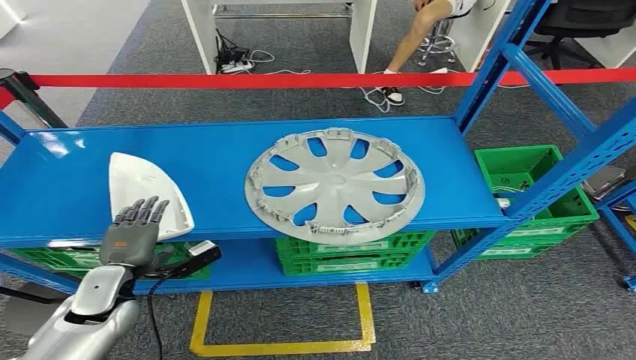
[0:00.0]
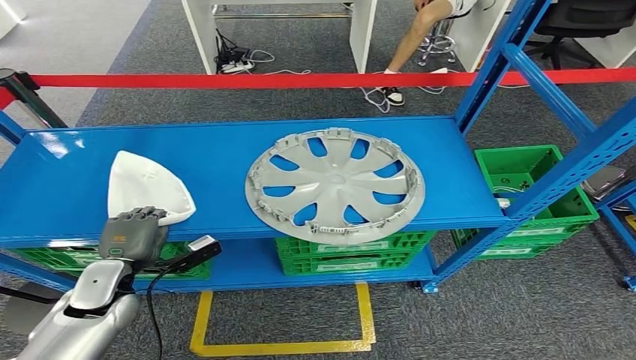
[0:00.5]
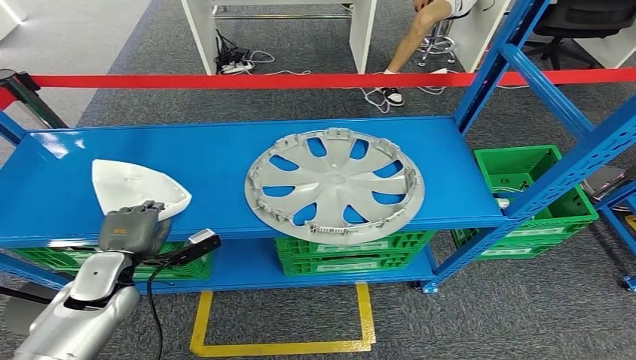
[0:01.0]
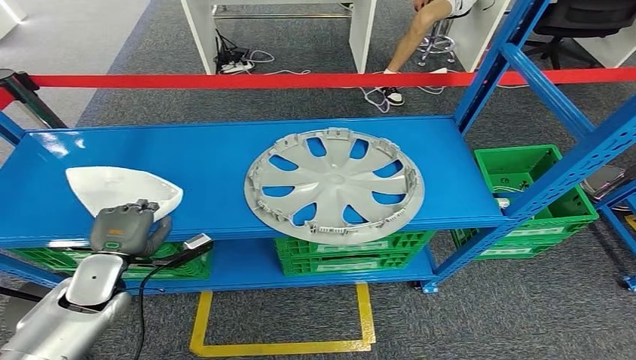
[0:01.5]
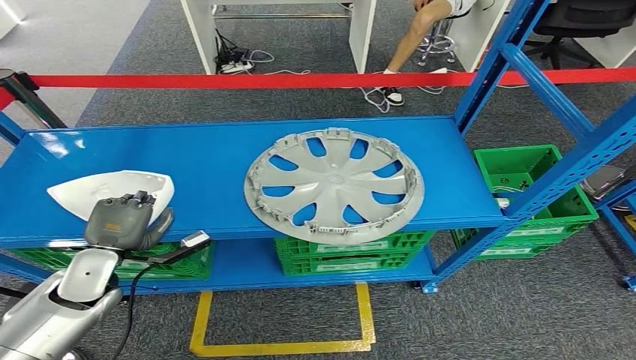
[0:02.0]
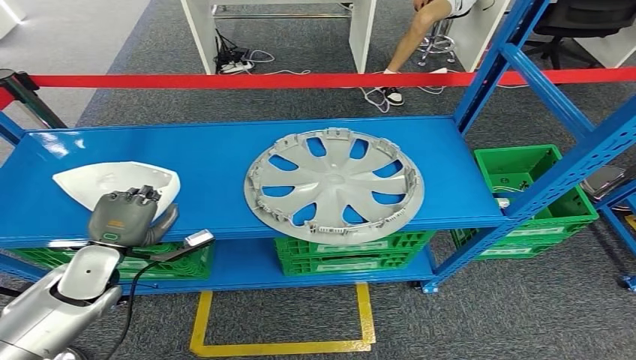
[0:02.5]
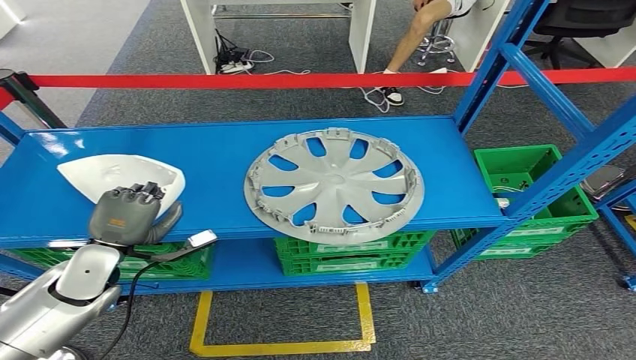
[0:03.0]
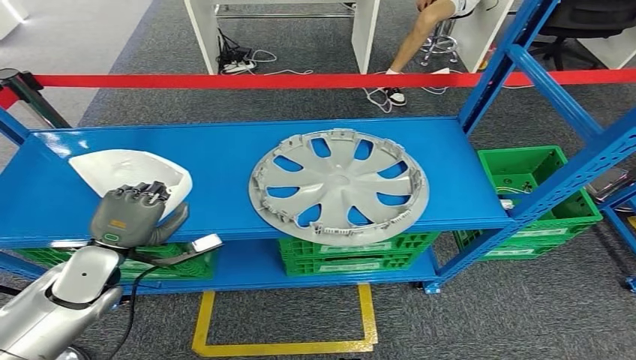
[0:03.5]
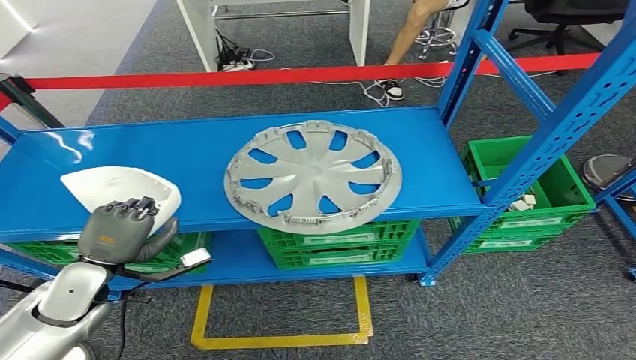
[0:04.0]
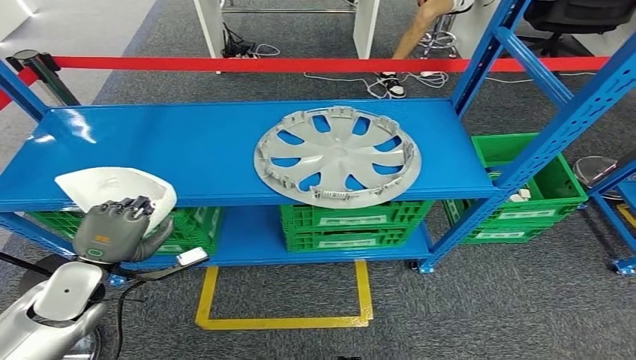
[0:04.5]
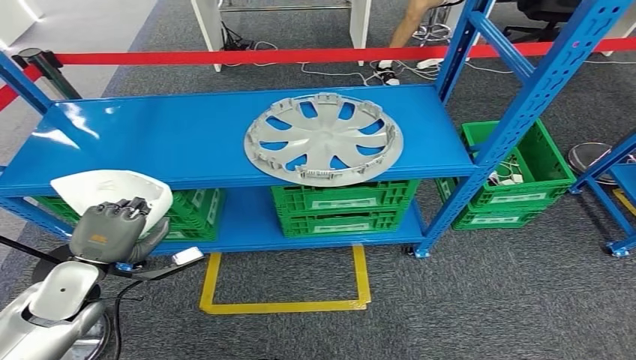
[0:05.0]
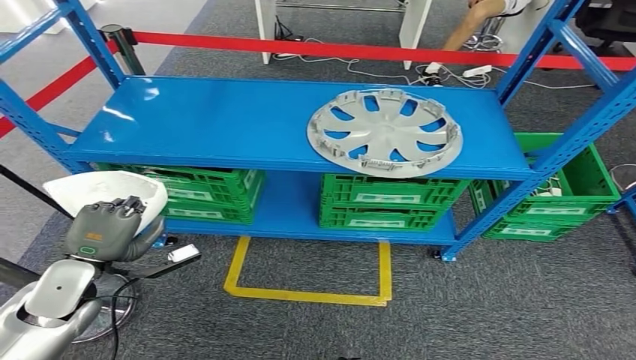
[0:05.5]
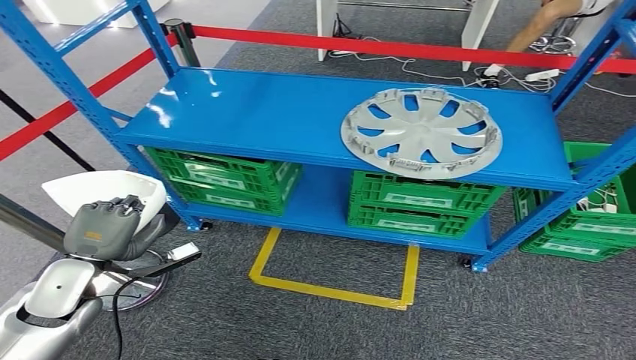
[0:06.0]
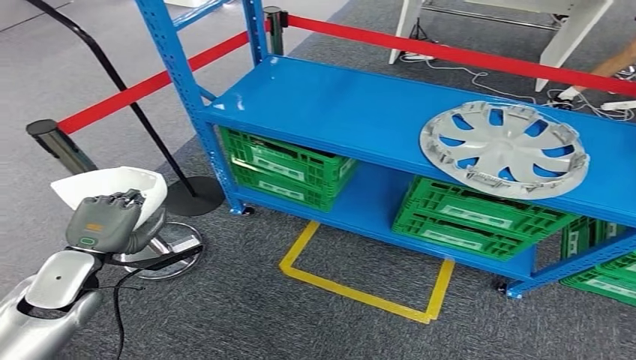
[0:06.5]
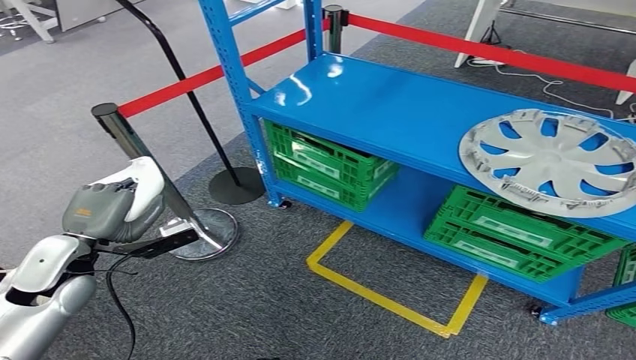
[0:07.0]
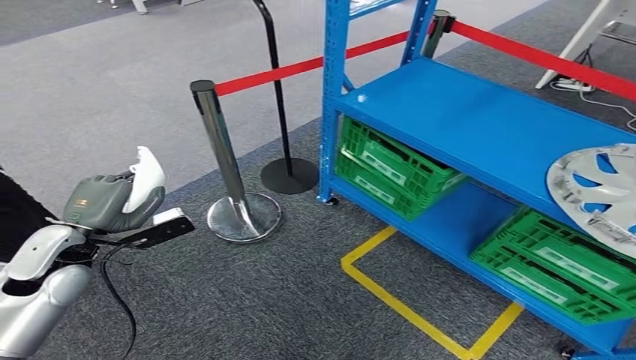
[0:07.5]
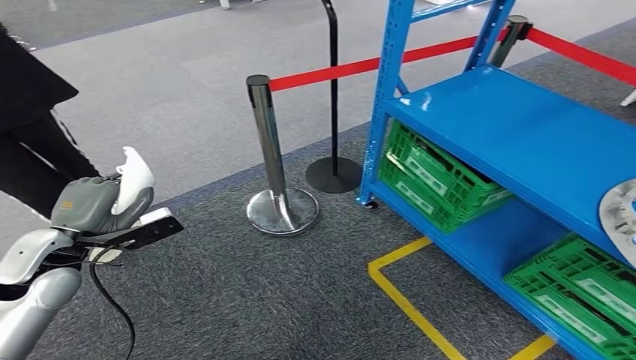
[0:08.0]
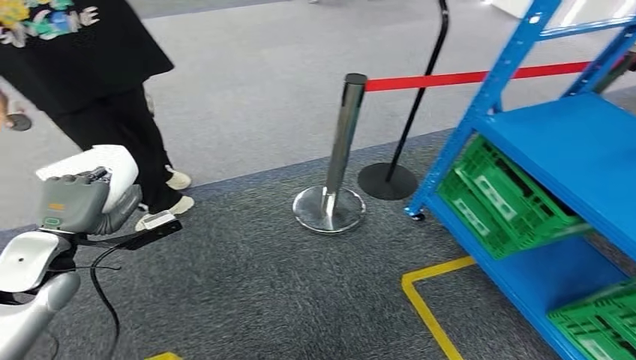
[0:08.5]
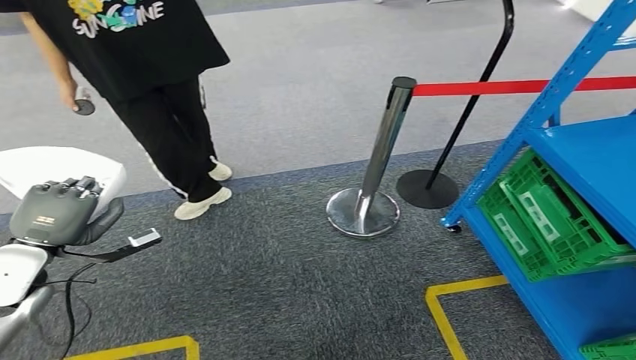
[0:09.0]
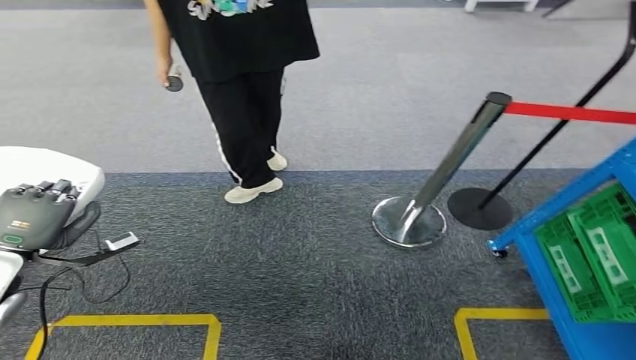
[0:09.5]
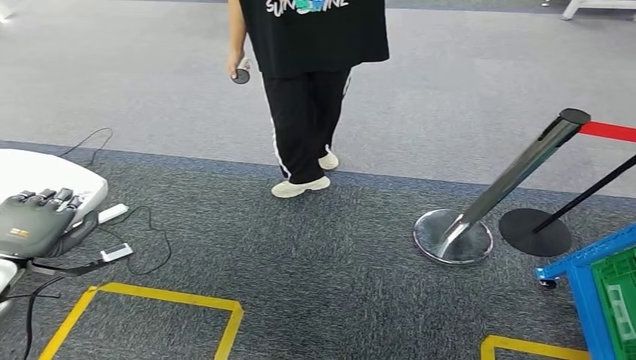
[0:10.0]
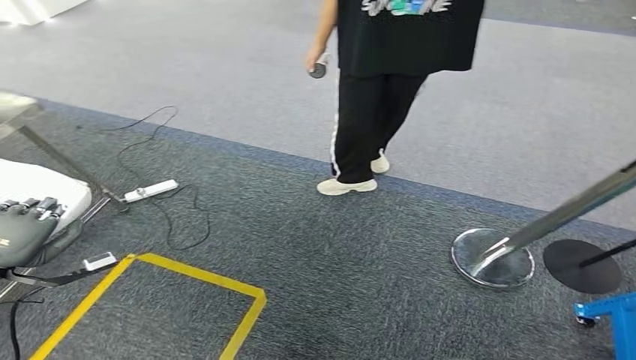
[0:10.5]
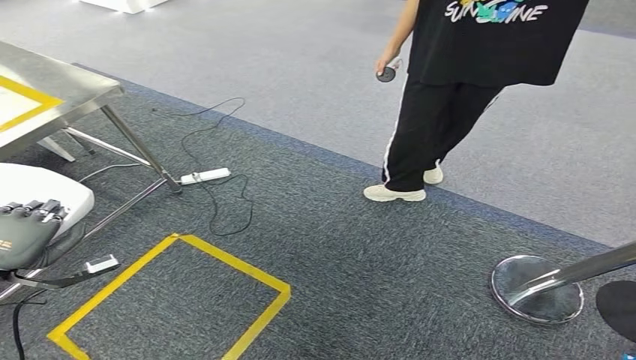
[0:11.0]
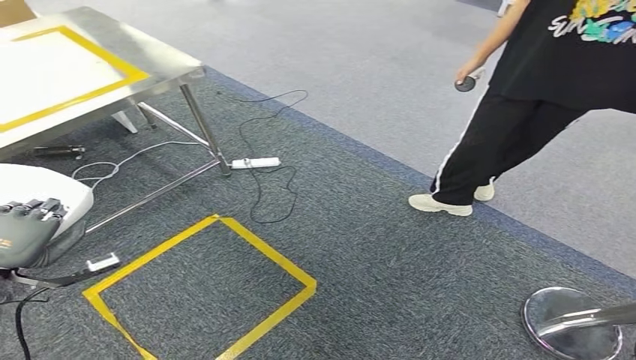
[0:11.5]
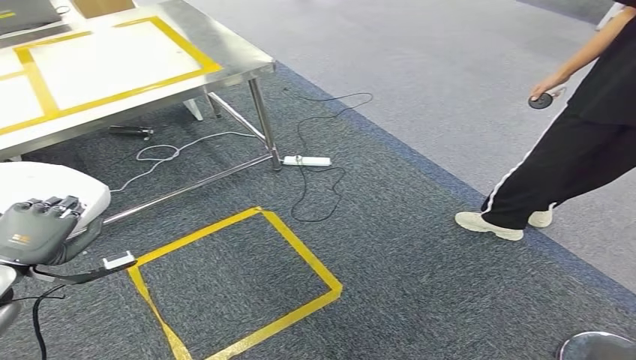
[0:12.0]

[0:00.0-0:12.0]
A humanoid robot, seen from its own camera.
Step, 0:00.0 to 0:04.5: Pick up the small parts from the shelf.

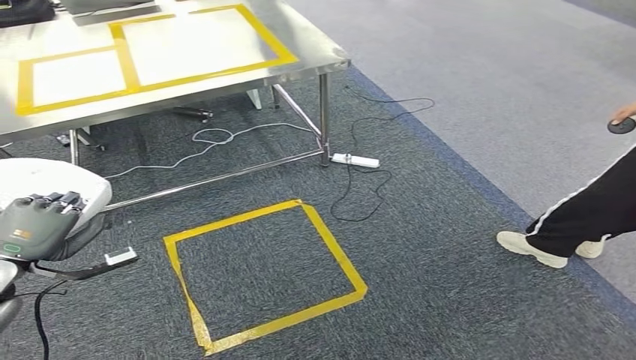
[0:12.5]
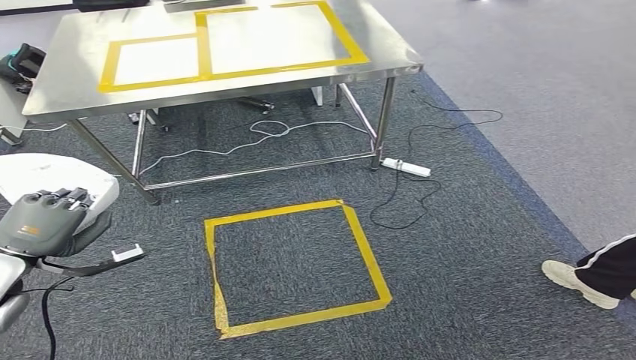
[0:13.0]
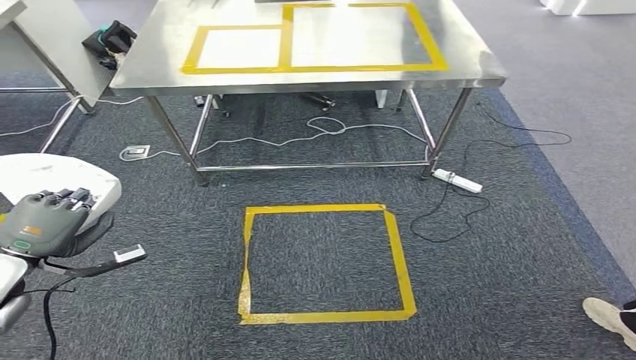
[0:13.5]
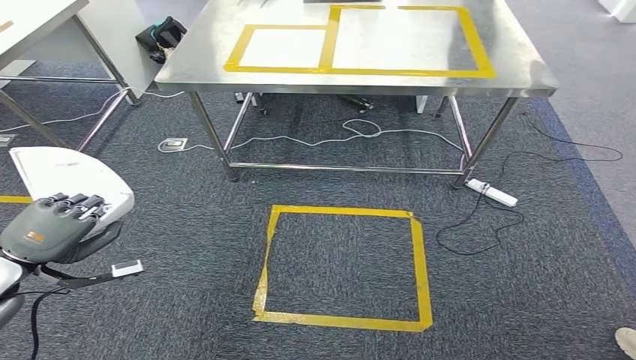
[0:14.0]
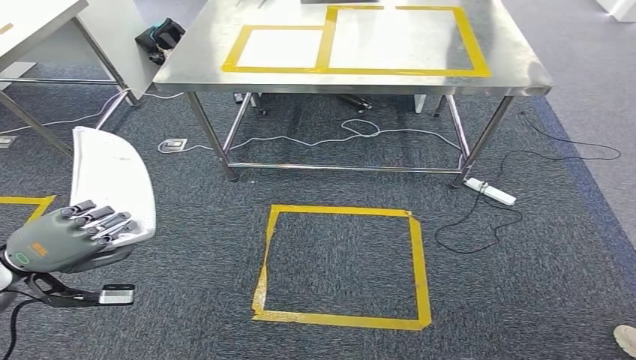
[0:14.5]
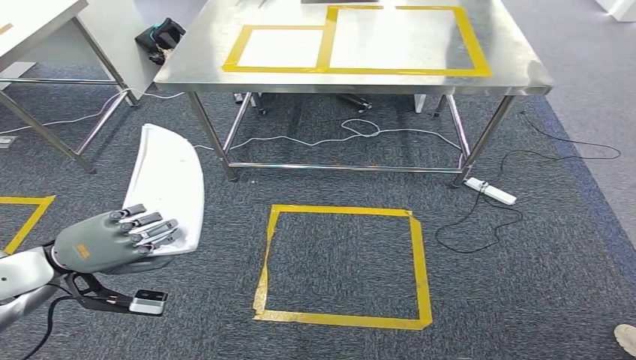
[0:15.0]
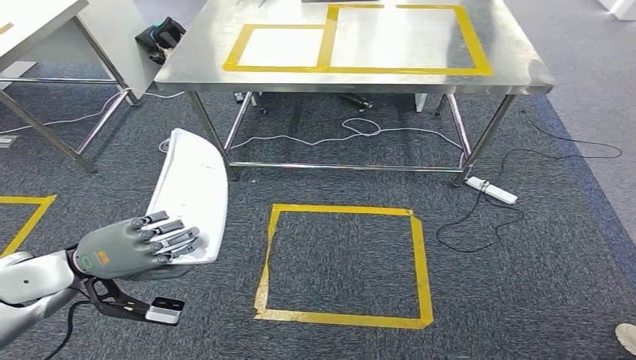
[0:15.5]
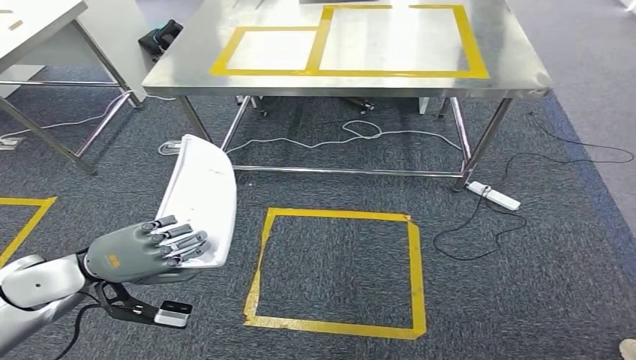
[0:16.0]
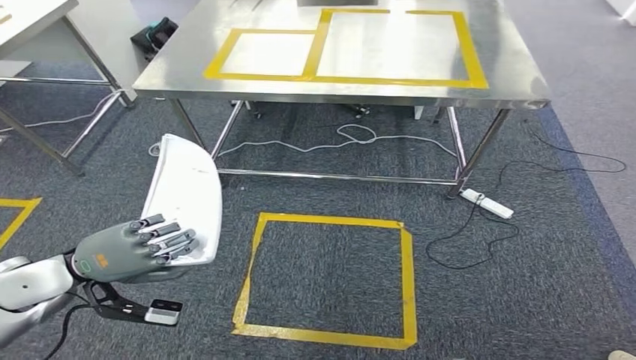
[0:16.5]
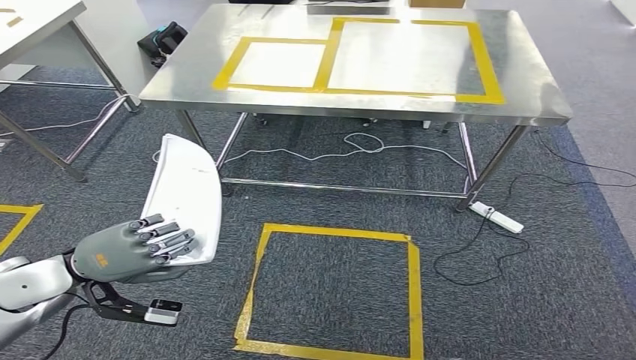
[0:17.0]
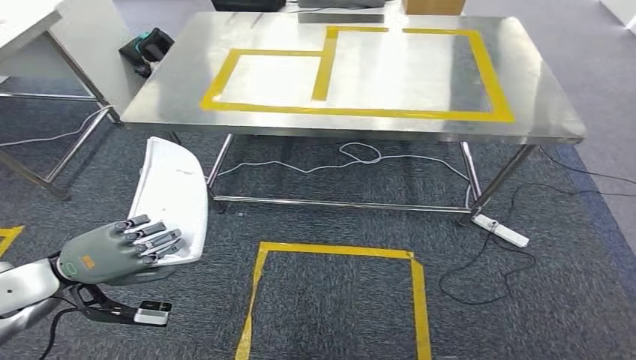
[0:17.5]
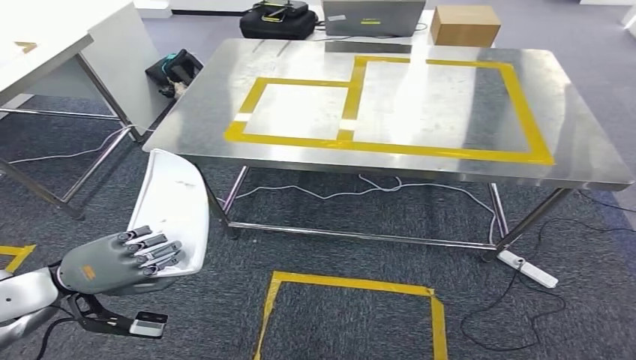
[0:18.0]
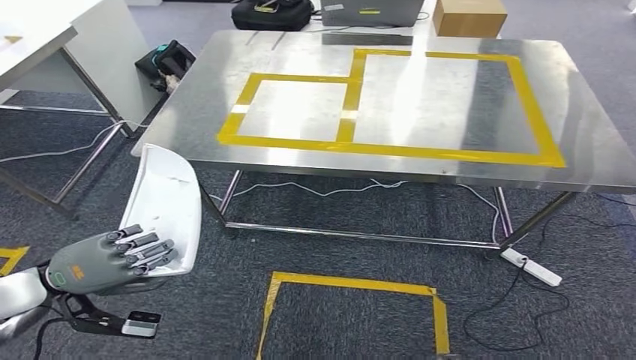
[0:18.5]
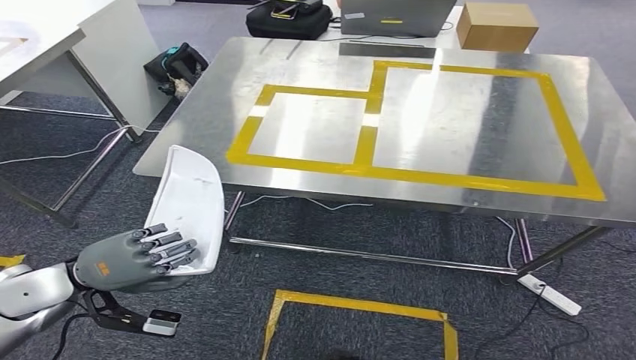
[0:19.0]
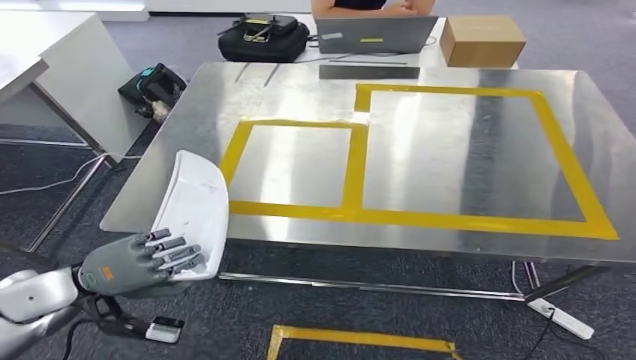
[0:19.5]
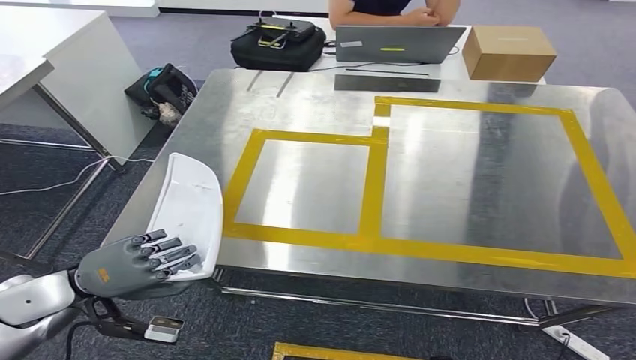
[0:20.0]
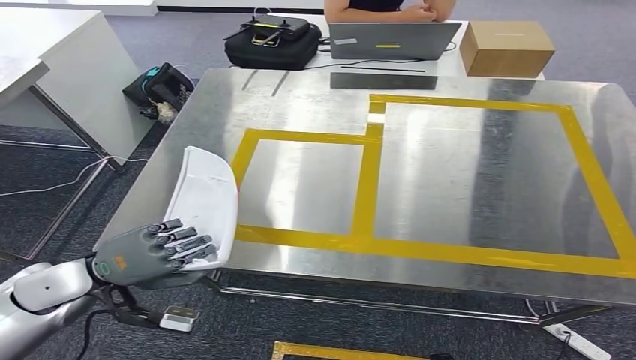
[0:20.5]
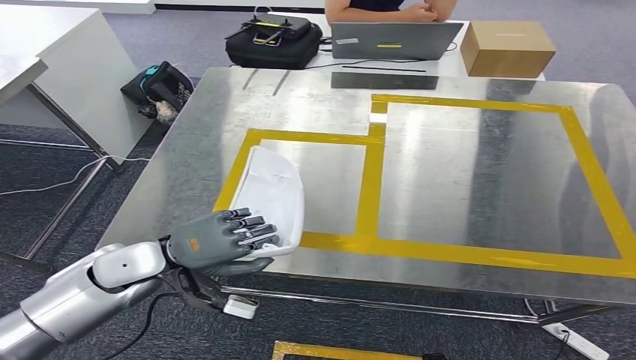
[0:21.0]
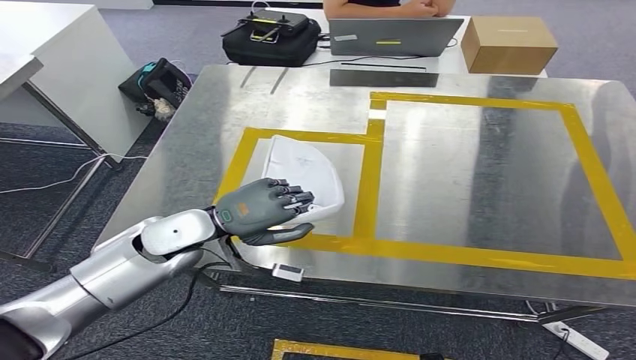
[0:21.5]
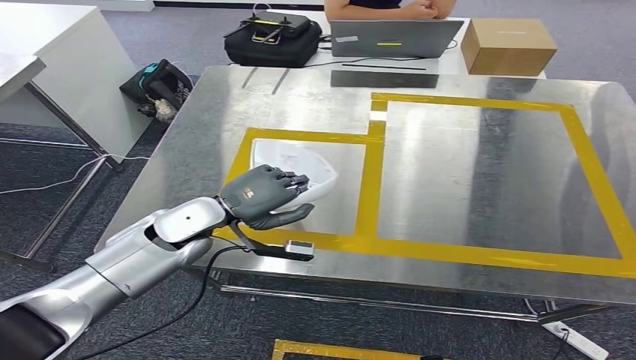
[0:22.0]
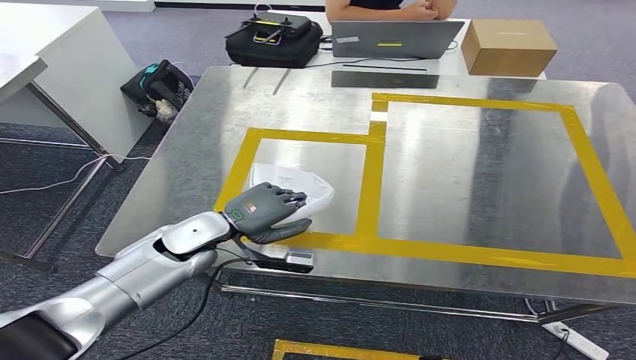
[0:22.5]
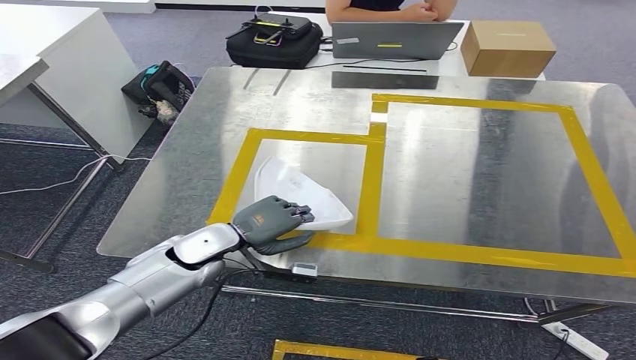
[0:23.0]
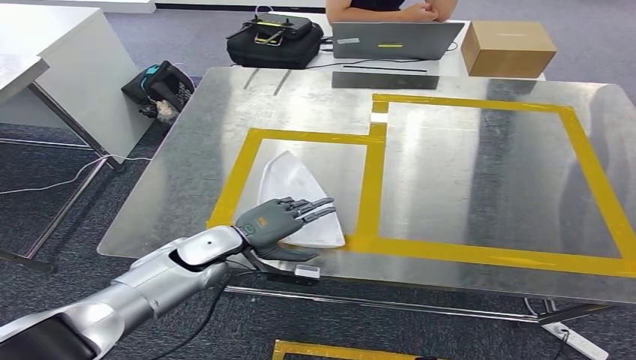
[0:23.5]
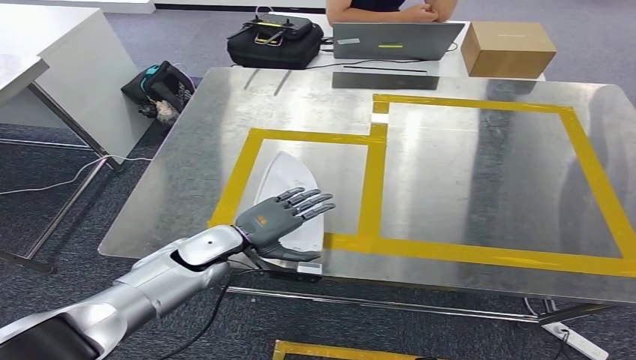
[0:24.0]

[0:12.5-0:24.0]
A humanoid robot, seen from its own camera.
Step, 0:12.5 to 0:15.0: Move the small parts to the workbench.
0:22.0 to 0:24.0: The left hand is displaced downward by about 10 cm.
